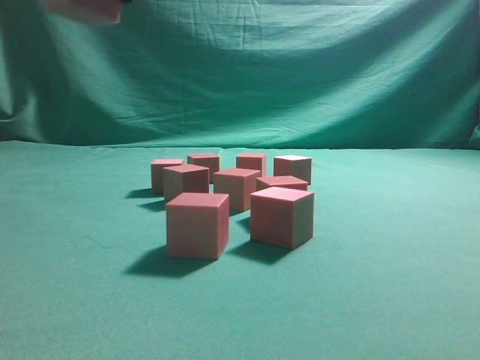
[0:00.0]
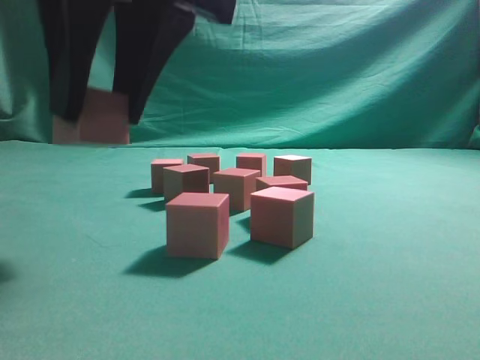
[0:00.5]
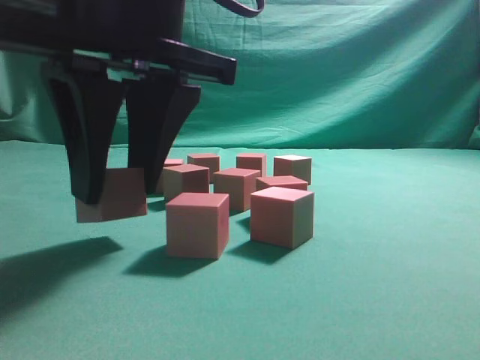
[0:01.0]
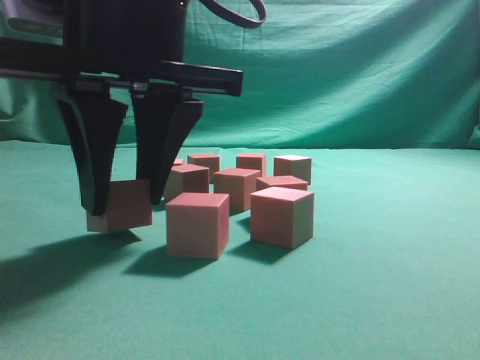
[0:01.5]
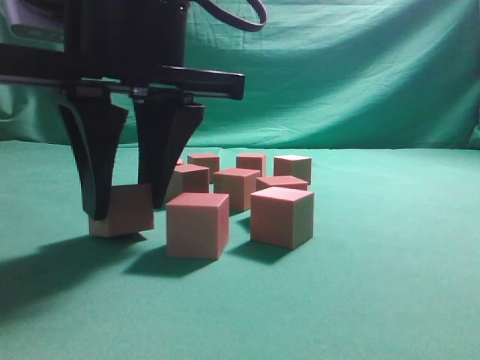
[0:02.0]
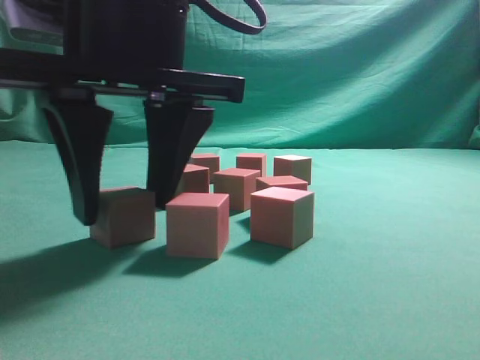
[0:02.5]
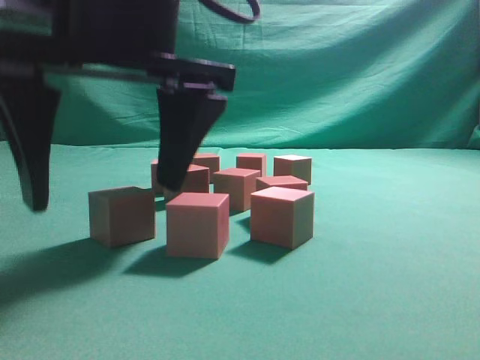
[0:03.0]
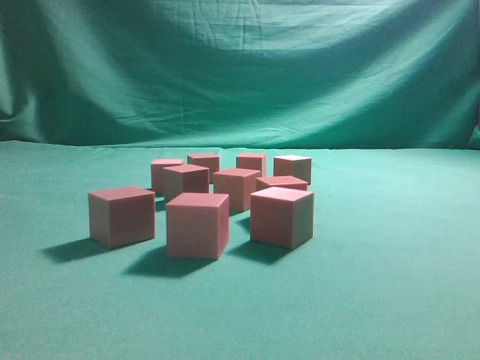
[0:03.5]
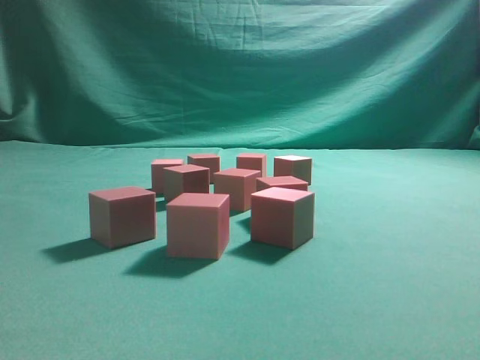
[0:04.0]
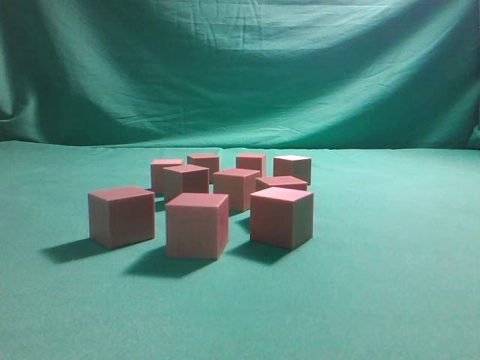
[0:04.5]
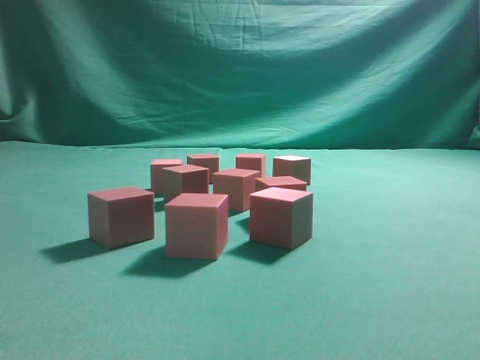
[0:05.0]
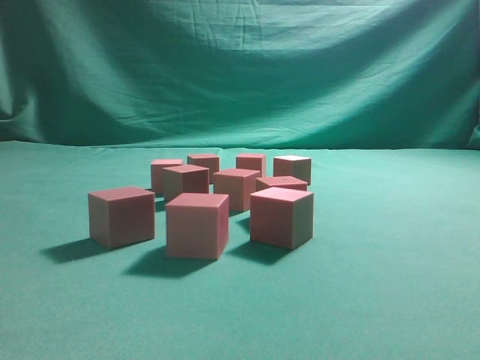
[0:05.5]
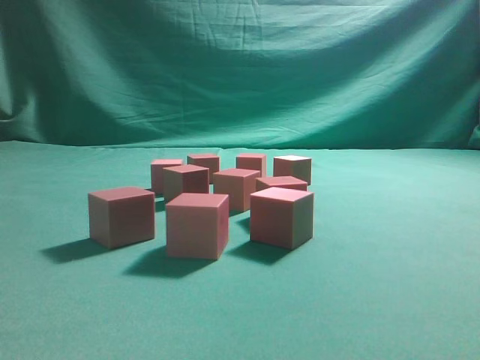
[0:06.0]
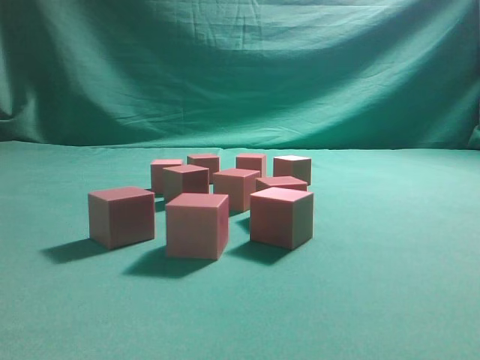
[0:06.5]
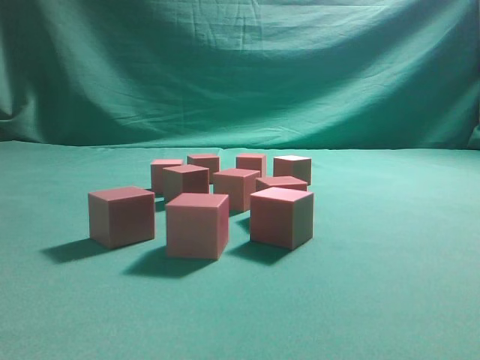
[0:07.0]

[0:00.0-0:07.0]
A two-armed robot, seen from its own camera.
Task of the whole recording: pick up the multiple cubes in two columns one by one and place them in another position on the table.
Step, 0:00.0 to 0:03.0: Place the block at the correct position to assemble the letter S.
0:00.0 to 0:02.0: The right gripper shifts approximately 10 cm downward.
0:02.0 to 0:03.5: The right gripper is displaced upward by roughly 15 cm, and opens, then closes again.
